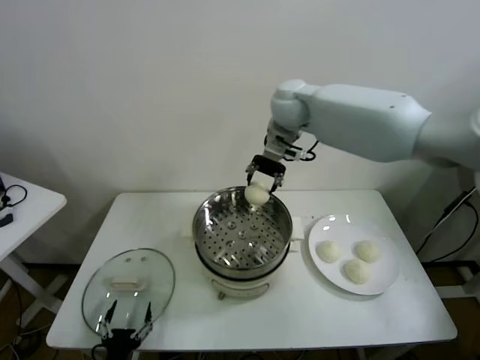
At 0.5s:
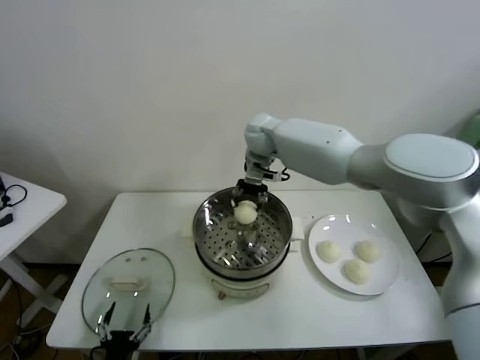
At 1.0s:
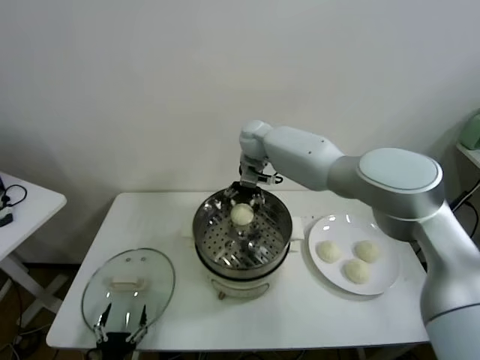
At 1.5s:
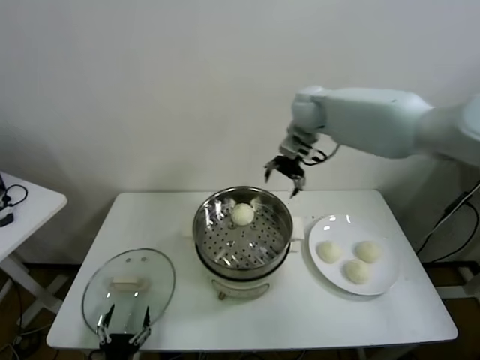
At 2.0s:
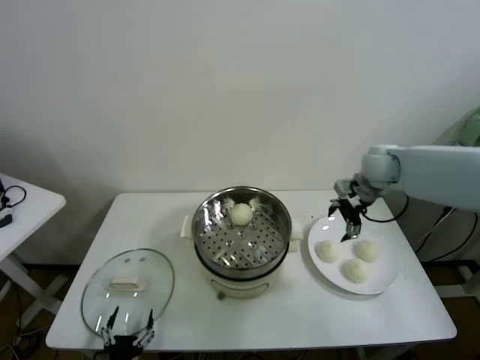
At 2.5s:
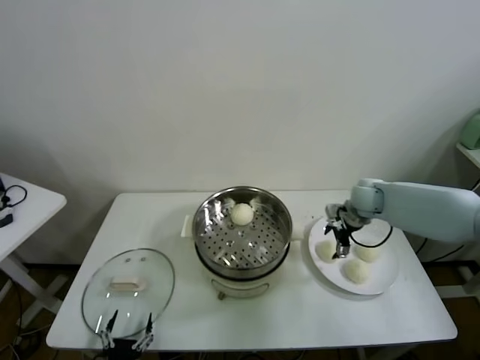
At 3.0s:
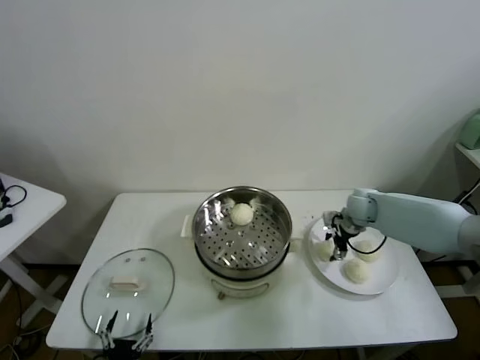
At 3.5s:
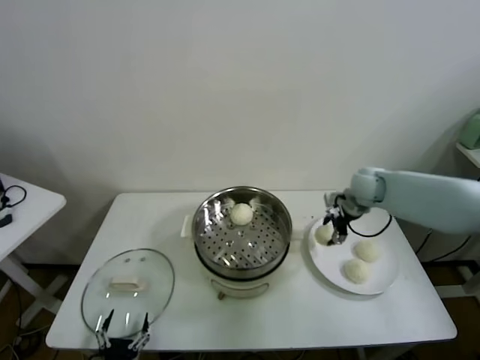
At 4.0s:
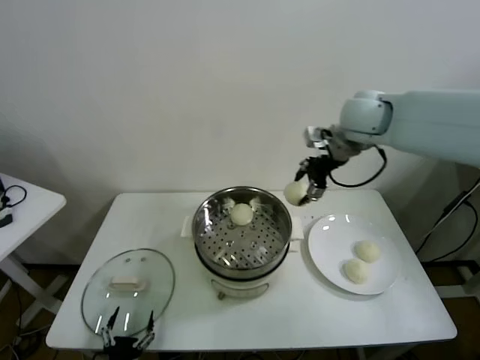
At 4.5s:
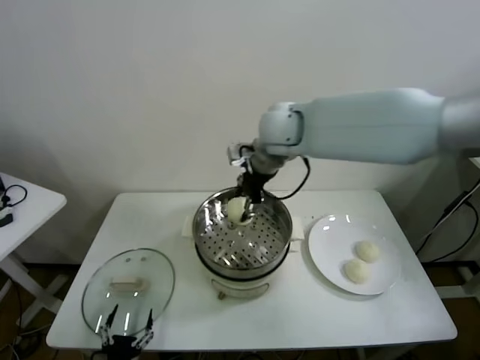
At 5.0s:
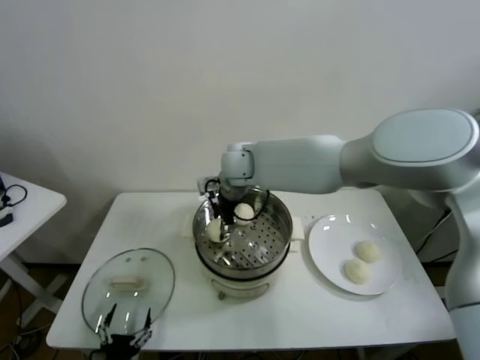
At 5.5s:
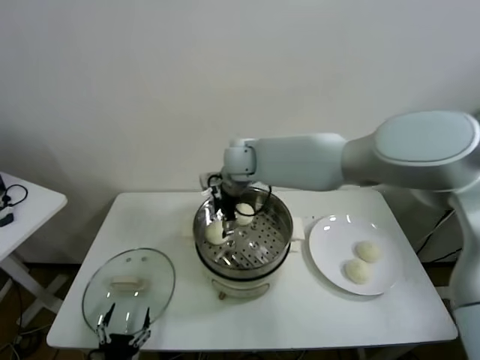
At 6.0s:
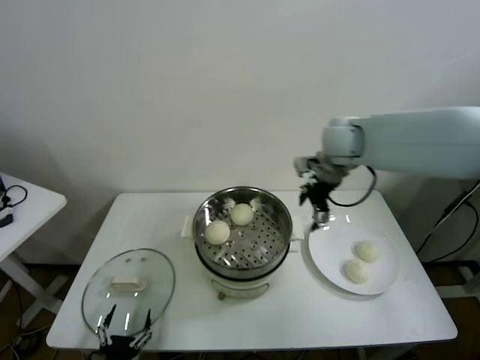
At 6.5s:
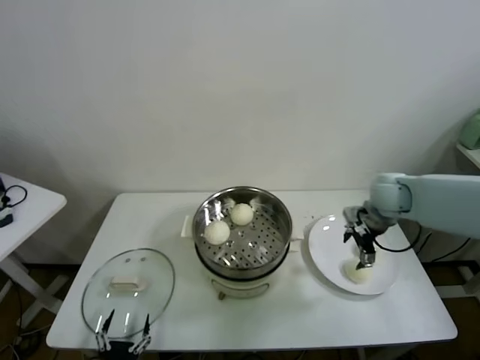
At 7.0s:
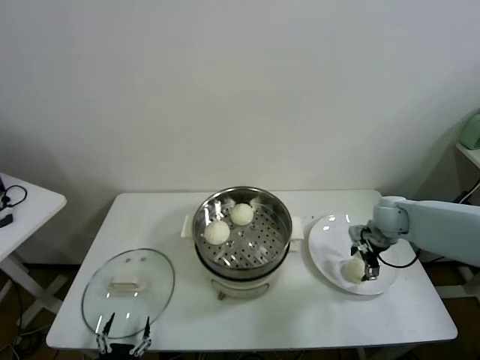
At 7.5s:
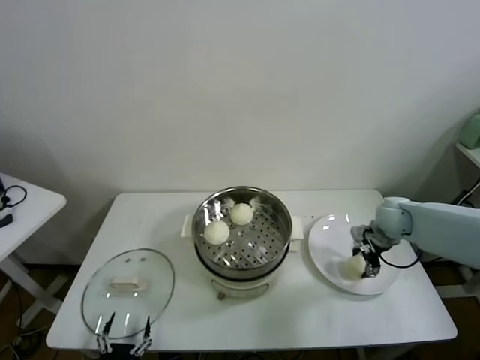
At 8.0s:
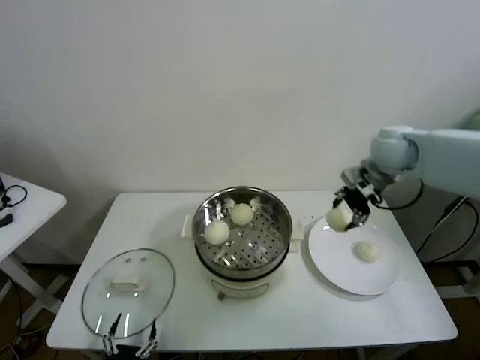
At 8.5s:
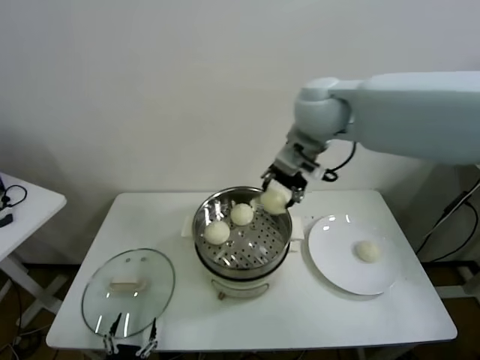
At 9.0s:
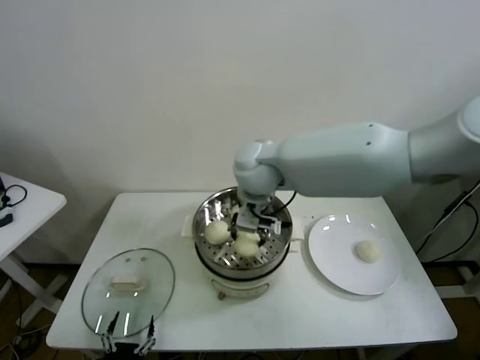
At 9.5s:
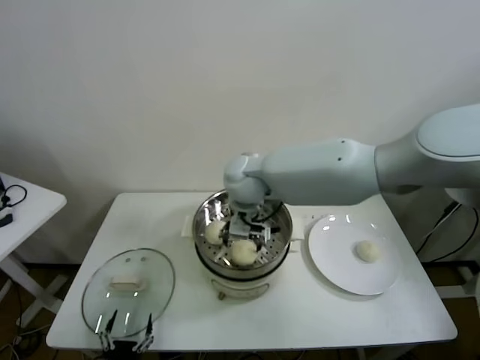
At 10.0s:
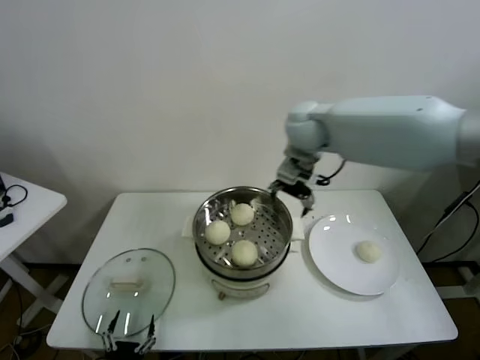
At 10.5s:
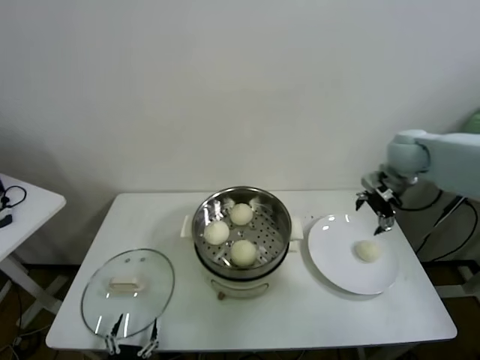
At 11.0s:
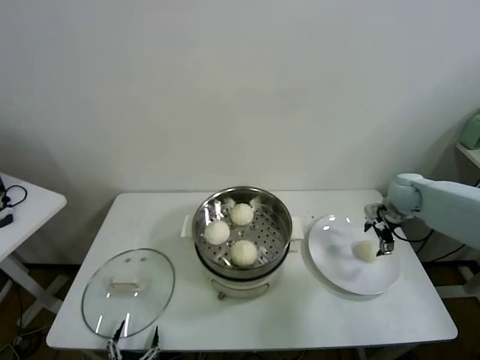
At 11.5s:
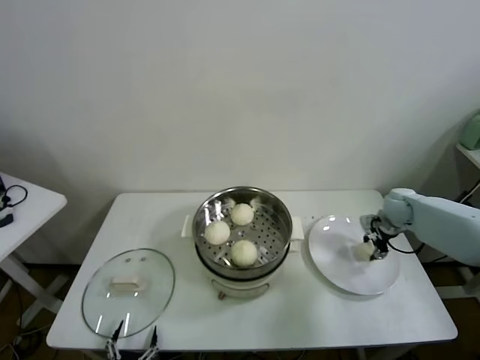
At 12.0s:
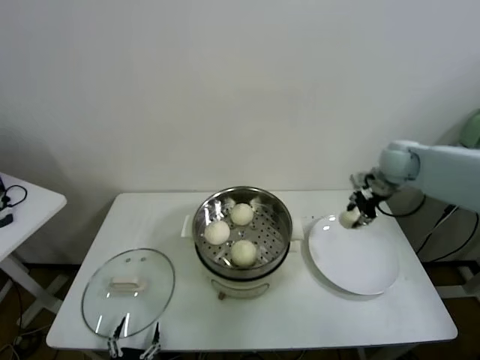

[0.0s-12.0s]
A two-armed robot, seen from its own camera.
Task of the whole recording: take steamed baozi put them in steamer.
Step, 1.5s to 3.0s: Grasp the baozi in the plate with right gripper.
Step, 3.5s to 5.0s: Place the baozi on the steamer with right gripper.
Step, 5.5s to 7.0s: Grasp the baozi in the plate with right gripper.
Step, 7.5s to 9.5s: Place the baozi on the steamer with right gripper.
Step, 10.0s to 11.5s: Grasp the baozi in the plate with right gripper.
0.0s to 2.0s: The right gripper shifts some 25 cm to the right and downward, and opens up.
2.0s to 4.0s: The right gripper travels upward and to the left by about 20 cm, and closes.
4.0s to 6.0s: The right gripper is displaced downward by some 5 cm, moves approximately 20 cm to the left and comes back, and opens.
6.0s to 8.0s: The right gripper moves to the right, approximately 10 cm, travels downward and back again, some 20 cm each way, and closes its fingers.
8.0s to 10.0s: The right gripper travels to the left by approximately 20 cm, and opens its fingers.
10.0s to 12.0s: The right gripper heads to the right and downward, covering roughly 25 cm, and closes its fingers.

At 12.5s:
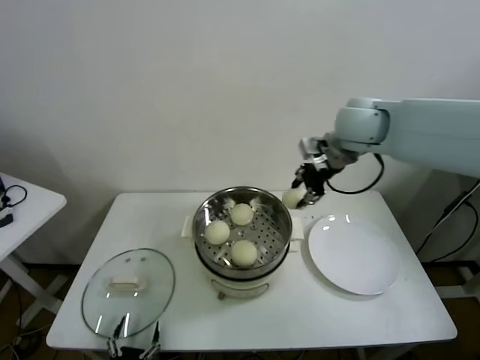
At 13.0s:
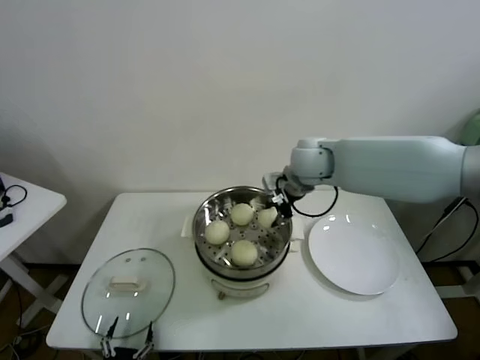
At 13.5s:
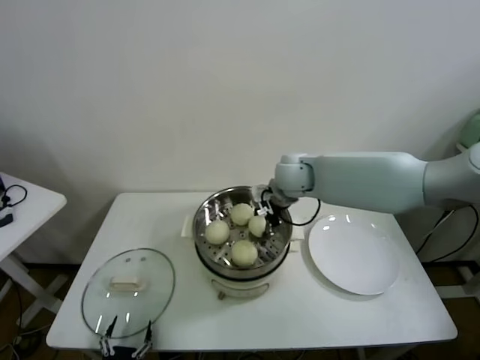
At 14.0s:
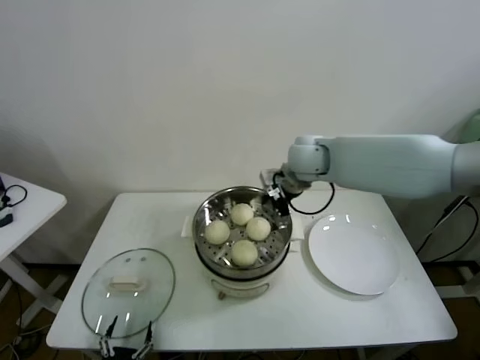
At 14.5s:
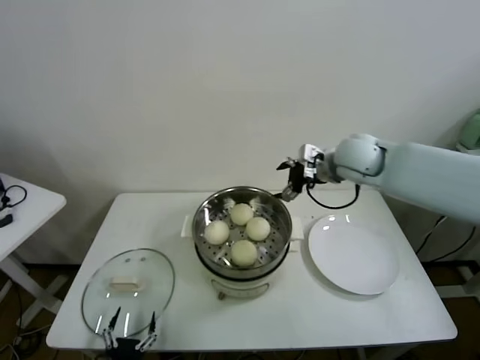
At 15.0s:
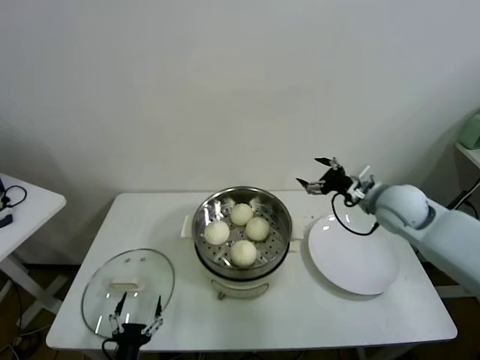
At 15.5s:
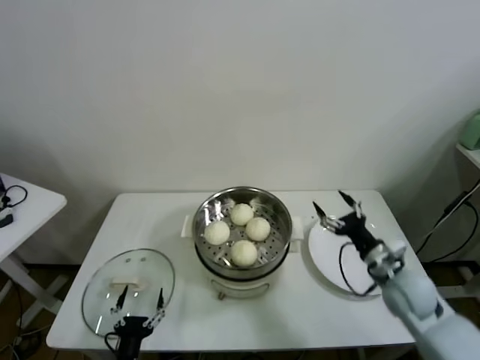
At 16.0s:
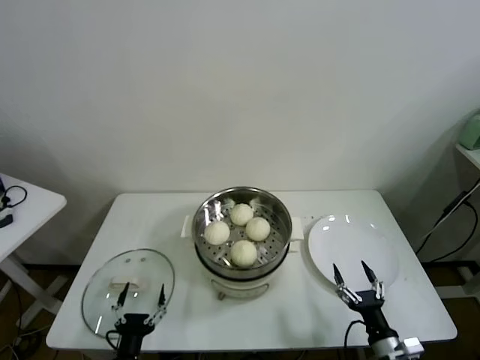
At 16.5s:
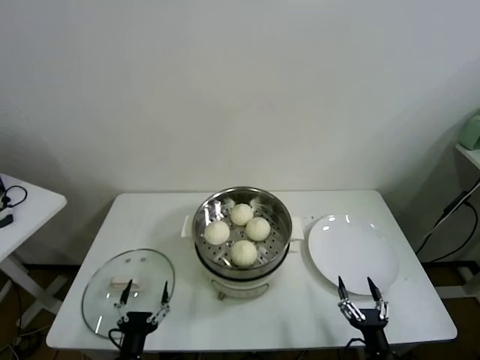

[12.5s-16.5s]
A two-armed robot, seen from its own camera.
Task of the whole recording: take steamed baozi put them in steamer.
12.5s to 14.5s: The right gripper travels downward by about 10 cm, and opens.
14.5s to 16.5s: The left gripper shifts by about 5 cm. The right gripper goes approximately 50 cm backward and downward.
